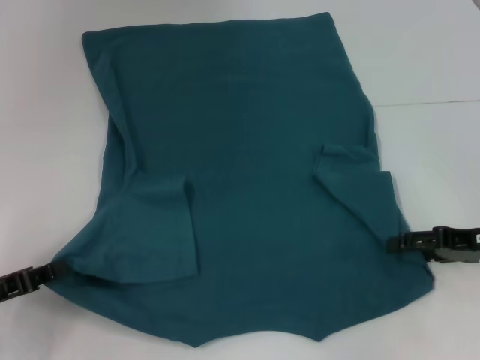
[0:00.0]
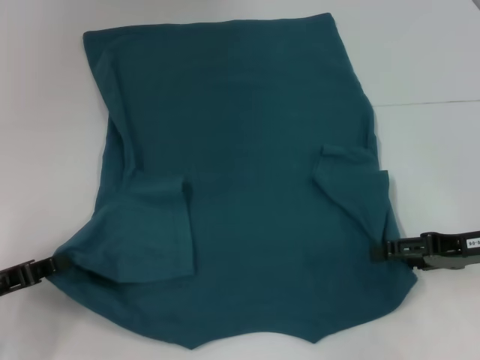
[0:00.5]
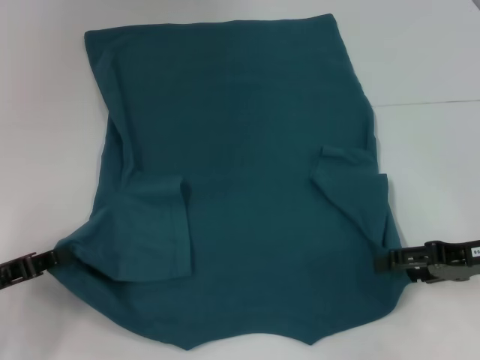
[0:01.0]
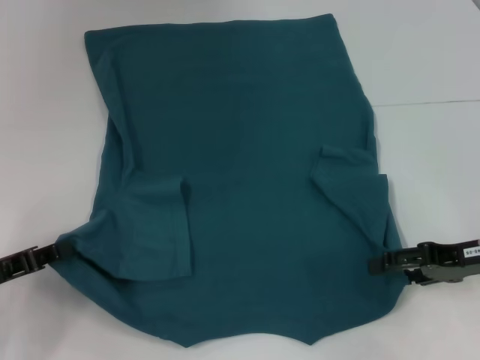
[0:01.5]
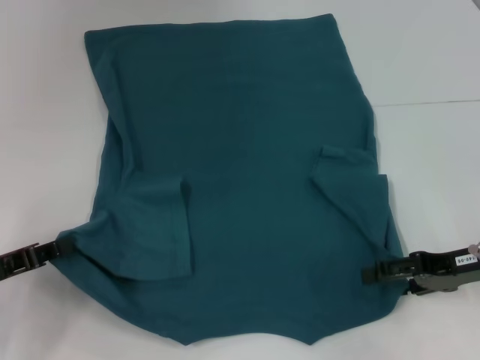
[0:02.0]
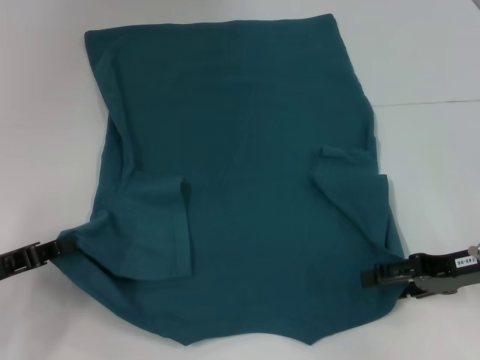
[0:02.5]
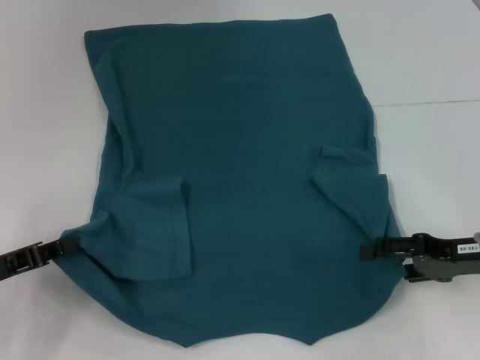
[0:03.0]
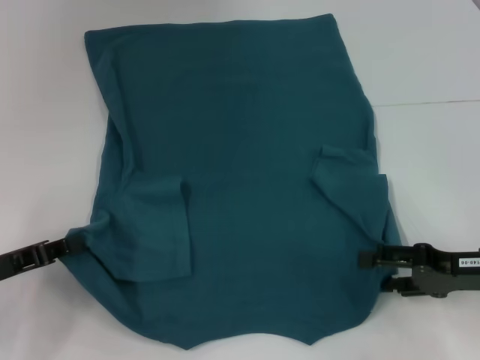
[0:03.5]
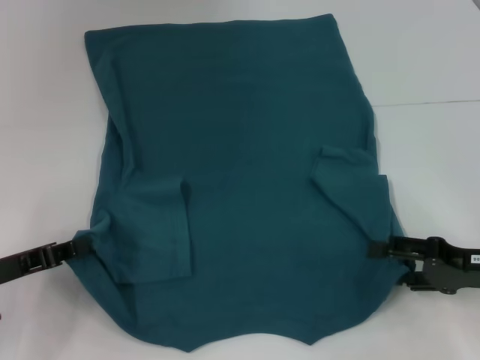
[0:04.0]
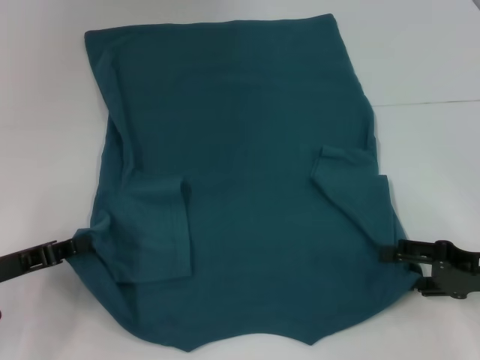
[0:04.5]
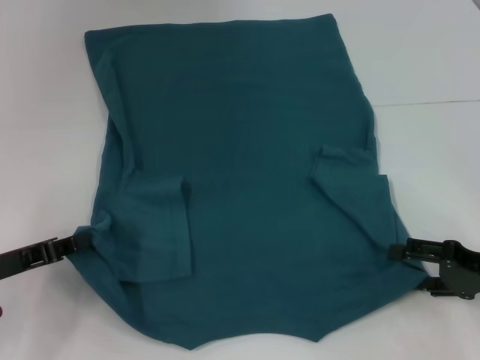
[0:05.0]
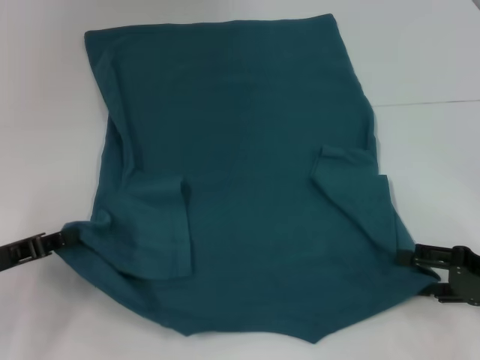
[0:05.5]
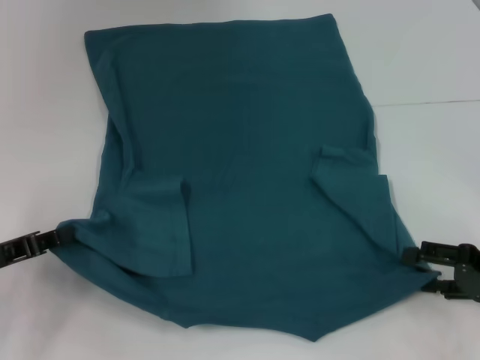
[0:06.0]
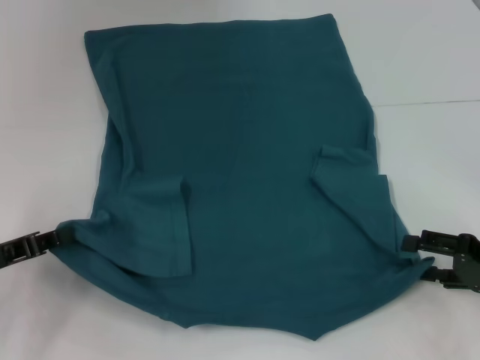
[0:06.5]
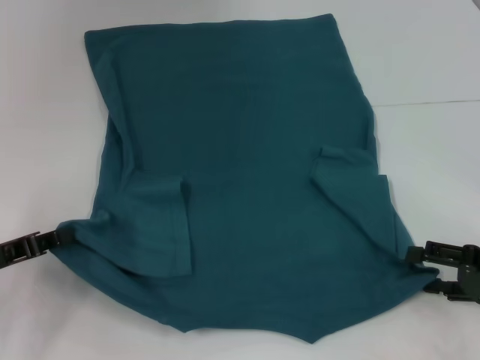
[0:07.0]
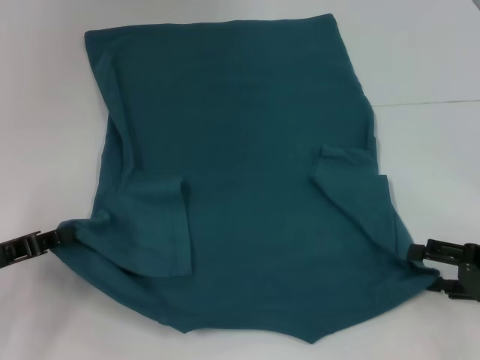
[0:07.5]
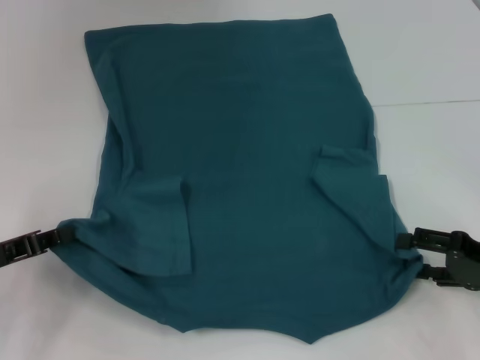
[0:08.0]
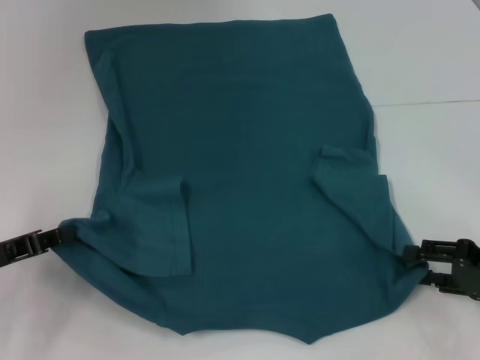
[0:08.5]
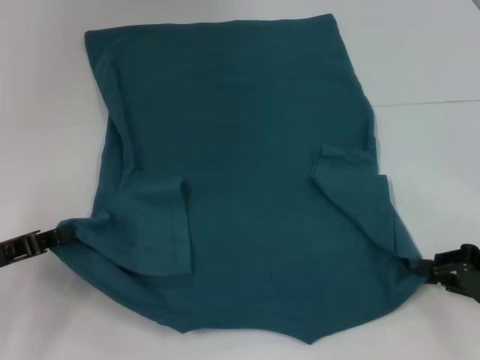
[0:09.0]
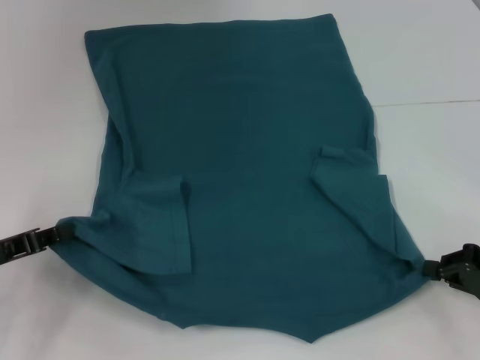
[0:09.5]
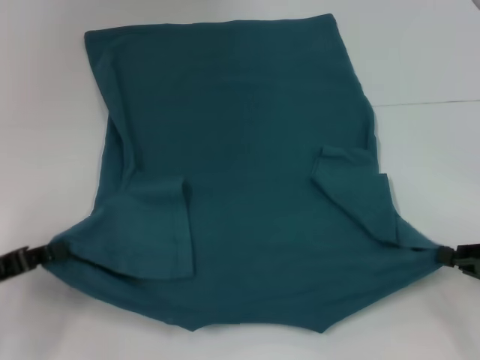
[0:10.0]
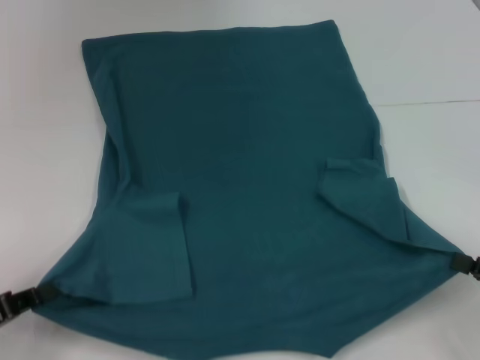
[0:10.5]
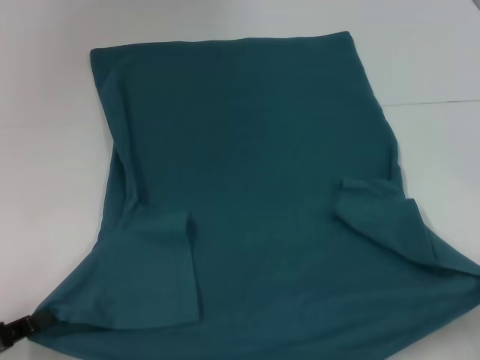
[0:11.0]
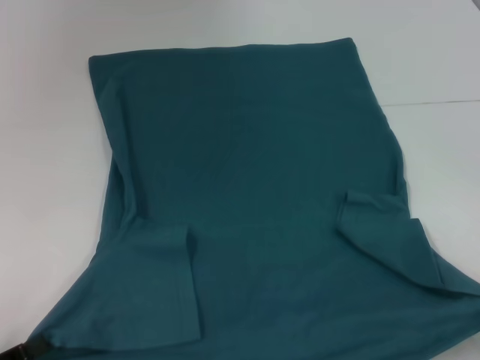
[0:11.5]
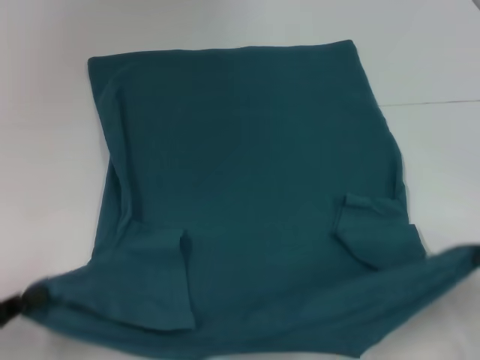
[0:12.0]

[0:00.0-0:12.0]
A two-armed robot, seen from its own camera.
Step, 0:00.0 to 0:09.5: Grab the bottom right corner with your right hand.
0:00.0 to 0:02.0: The grippers stay close to where they were, moving slightly.
0:04.0 to 0:06.0: There are only small adjustments of the grippers.
0:06.0 to 0:08.0: Neither gripper changes place.
0:08.0 to 0:10.0: The right gripper closes.
0:10.0 to 0:12.0: The two grippers go roughly 5 cm backward.

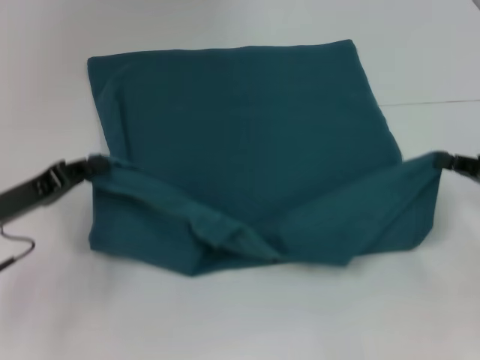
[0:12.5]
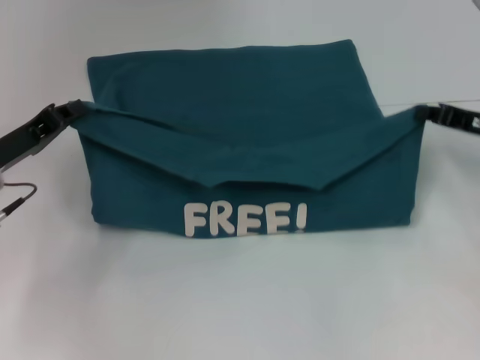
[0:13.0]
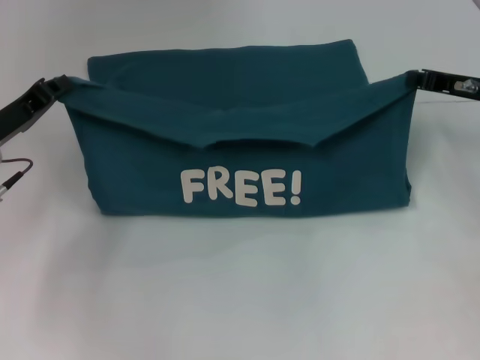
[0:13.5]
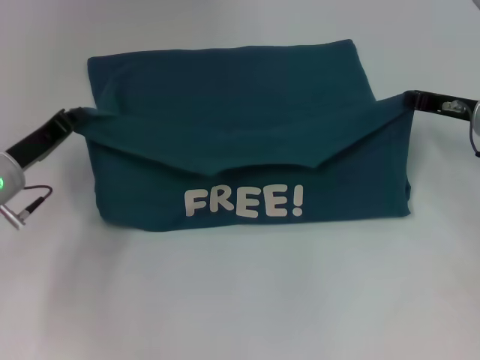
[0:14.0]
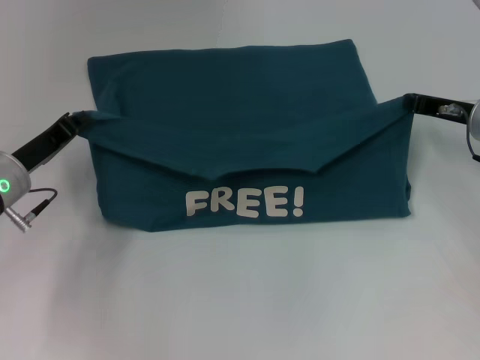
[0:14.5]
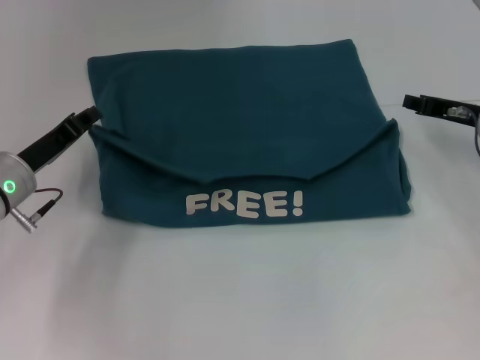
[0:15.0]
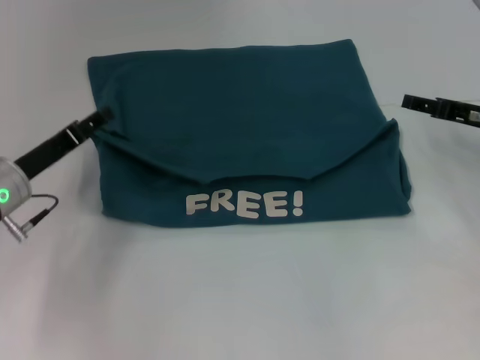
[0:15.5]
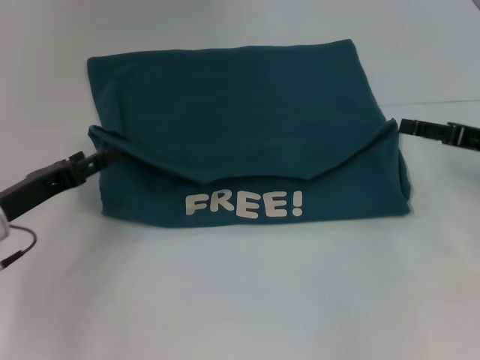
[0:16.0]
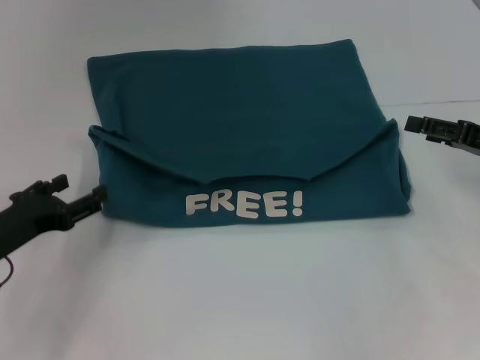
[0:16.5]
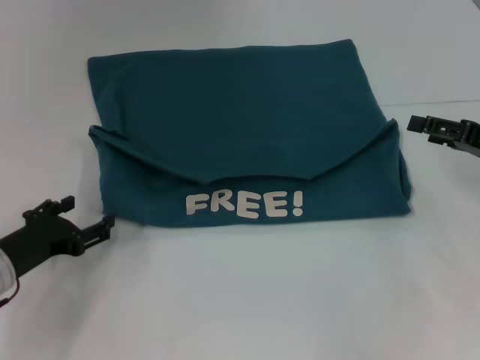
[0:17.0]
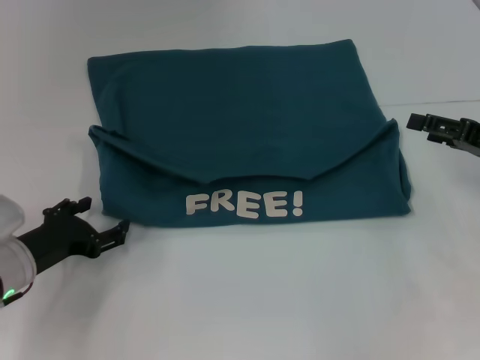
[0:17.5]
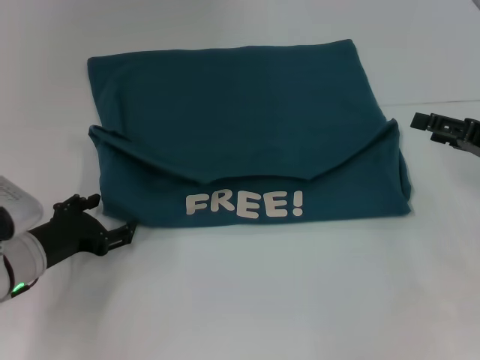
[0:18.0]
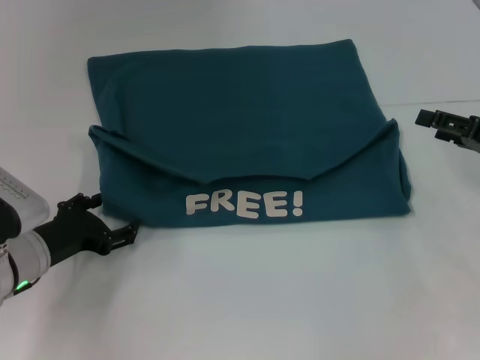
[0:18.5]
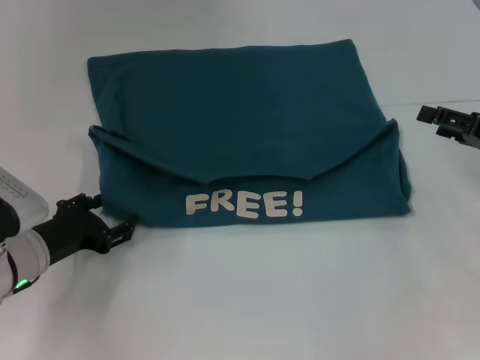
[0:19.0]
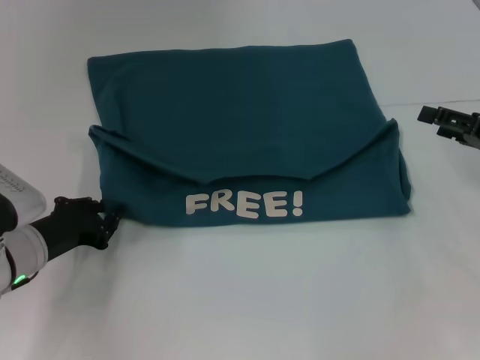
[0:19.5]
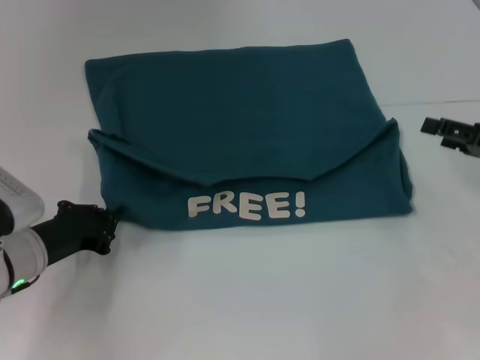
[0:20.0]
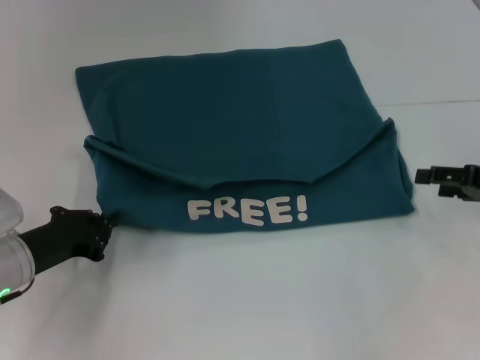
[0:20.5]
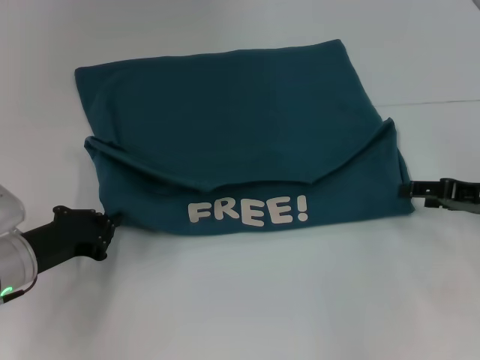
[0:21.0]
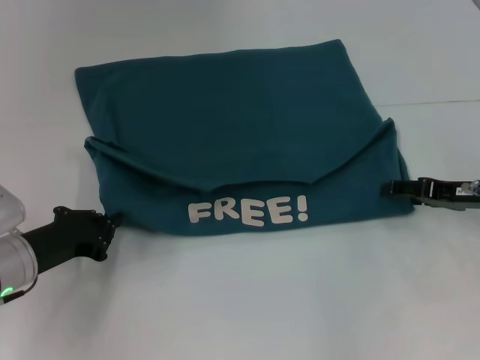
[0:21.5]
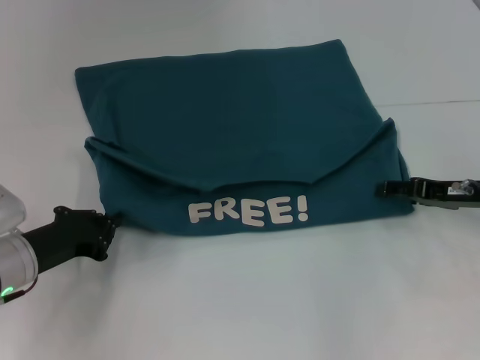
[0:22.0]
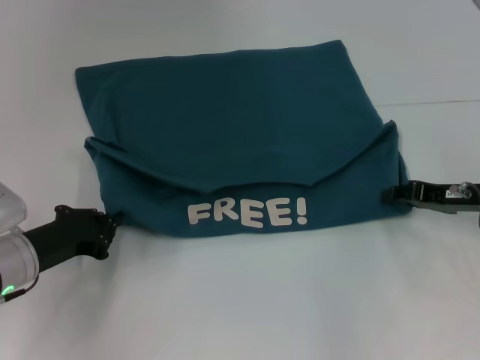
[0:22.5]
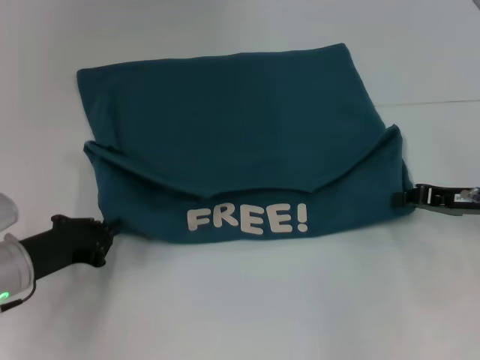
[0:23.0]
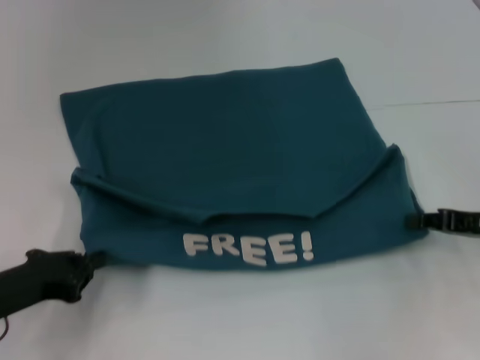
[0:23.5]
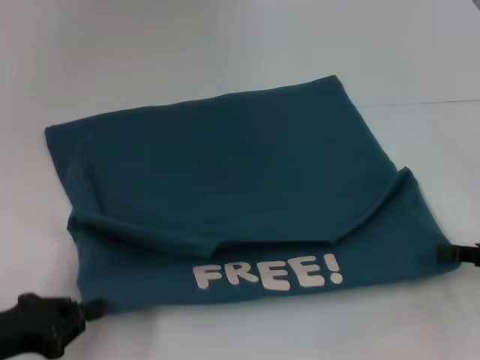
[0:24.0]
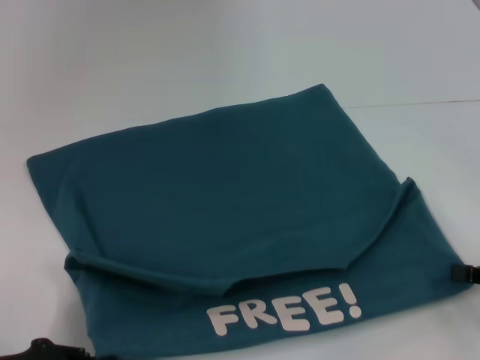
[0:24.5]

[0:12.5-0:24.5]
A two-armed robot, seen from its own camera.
Step, 0:12.5 to 0:15.0: Fold the clothes to the left.
Step, 0:12.5 to 0:15.0: Fold the clothes to the right.
0:12.5 to 0:14.5: The right gripper is displaced forward and to the left by approximately 15 cm; the left gripper moves forward, approximately 5 cm.
0:14.5 to 0:16.5: The grippers both shift backward by some 10 cm. The left gripper opens up. Meanwhile the right gripper opens up.
0:16.5 to 0:18.5: The left gripper ends up about 5 cm from where it was.
0:18.5 to 0:20.5: The left gripper closes up.
0:20.5 to 0:22.5: The right gripper goes some 5 cm to the left.
0:22.5 to 0:24.5: The left gripper travels backward by some 10 cm. Meanwhile the right gripper is displaced backward and to the right by approximately 15 cm, and closes.

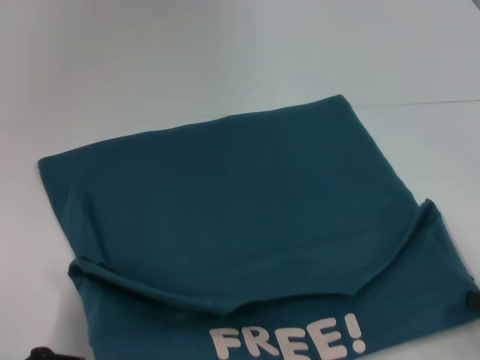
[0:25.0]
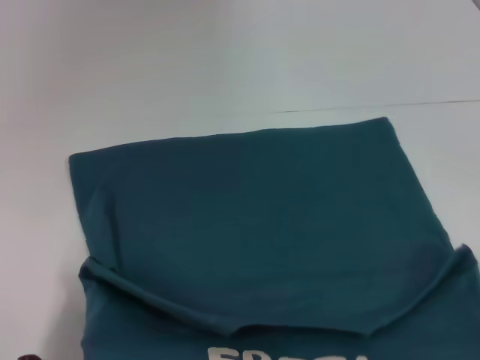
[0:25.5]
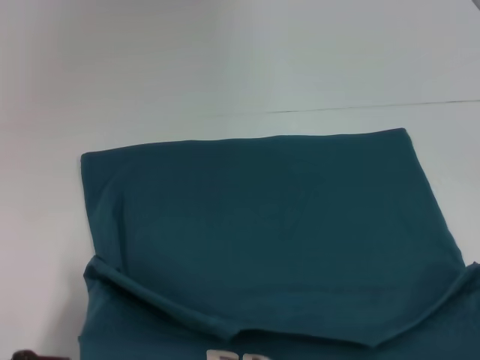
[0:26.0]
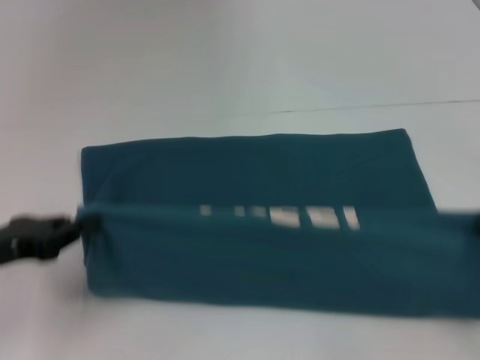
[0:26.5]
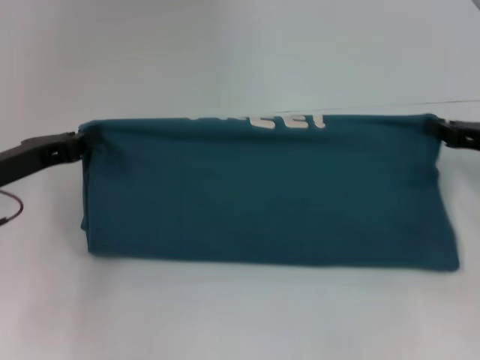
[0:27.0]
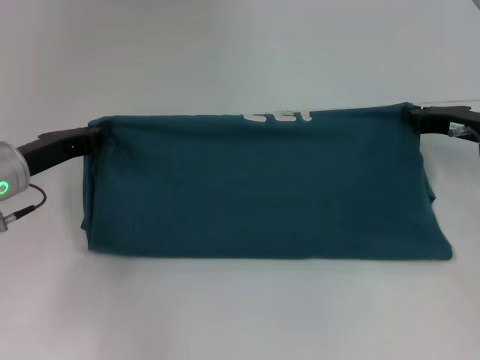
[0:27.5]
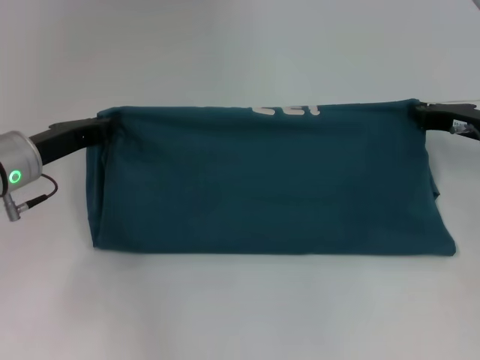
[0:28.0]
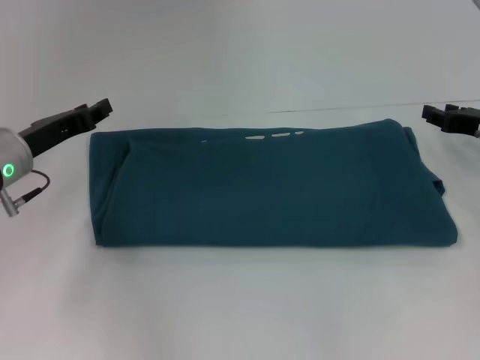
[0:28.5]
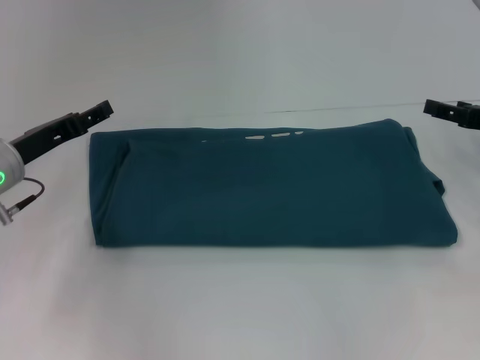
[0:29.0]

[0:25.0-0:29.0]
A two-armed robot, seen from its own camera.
Step, 0:26.0 to 0:28.5: Fold the clothes to the left.
Step, 0:26.0 to 0:28.5: Fold the clothes to the right.
0:25.0 to 0:27.0: The two grippers go about 15 cm forward.
0:27.0 to 0:29.0: The left gripper opens. The right gripper opens.
